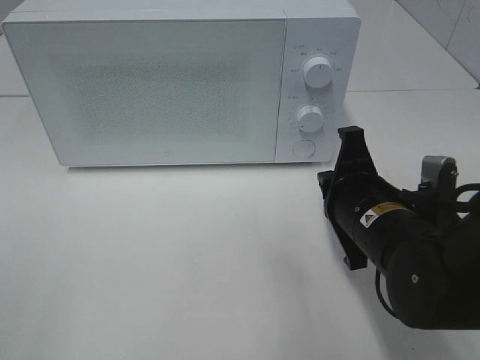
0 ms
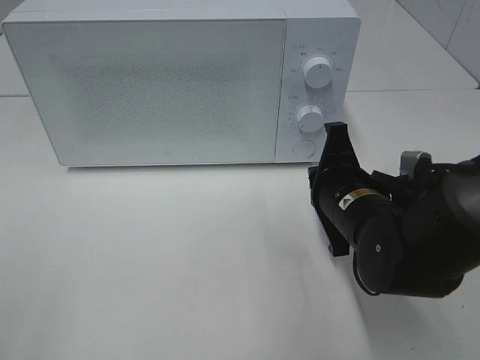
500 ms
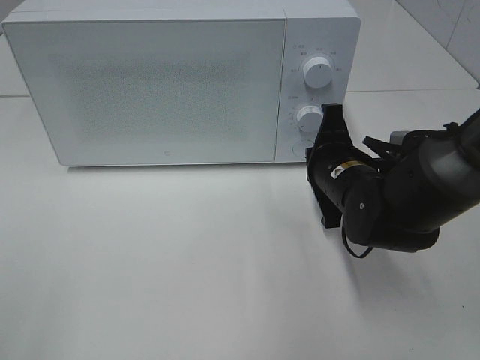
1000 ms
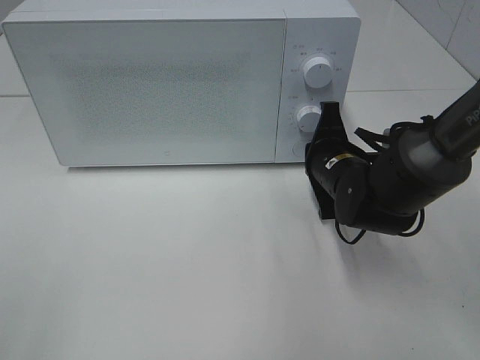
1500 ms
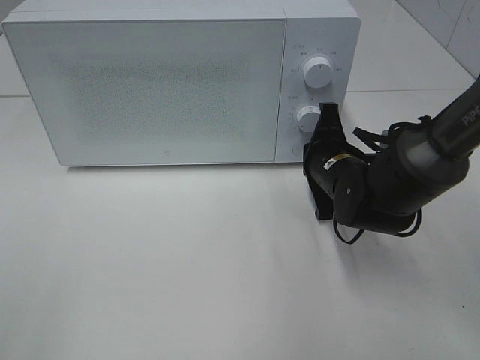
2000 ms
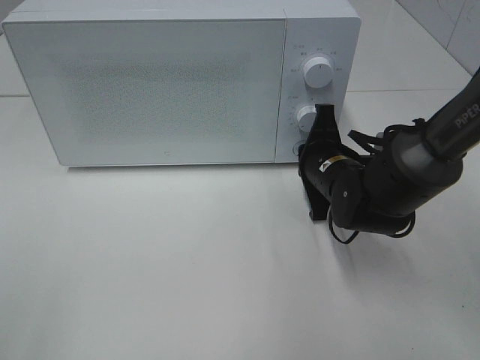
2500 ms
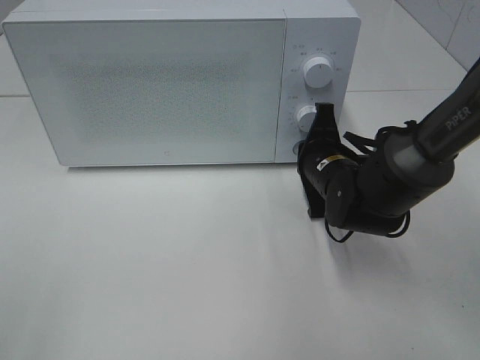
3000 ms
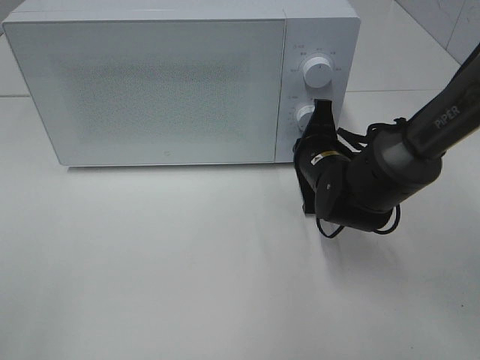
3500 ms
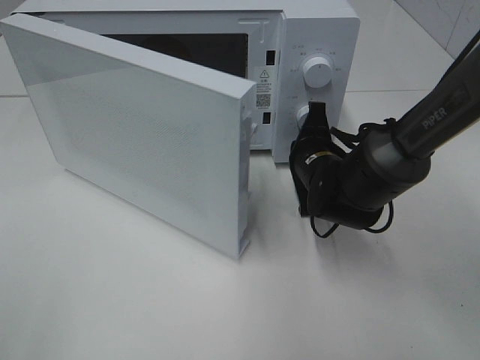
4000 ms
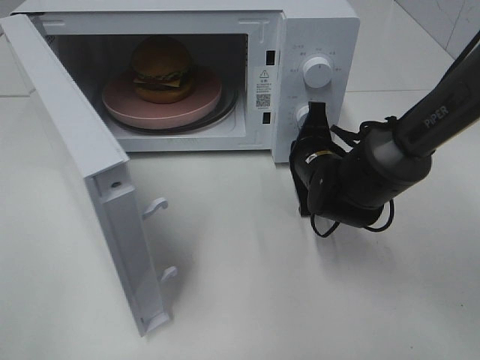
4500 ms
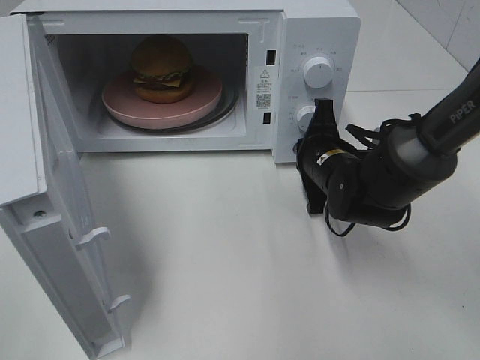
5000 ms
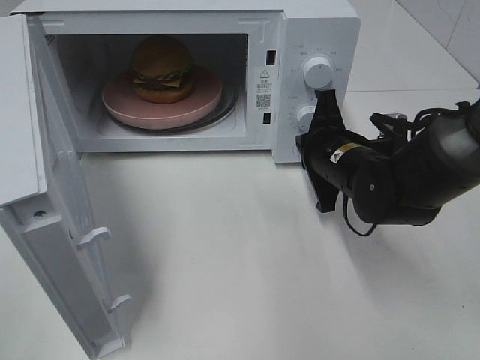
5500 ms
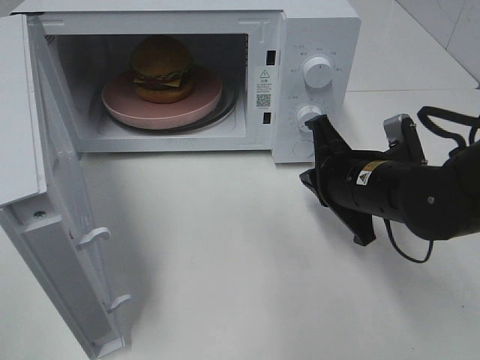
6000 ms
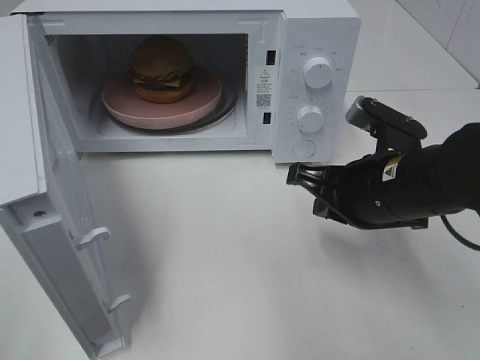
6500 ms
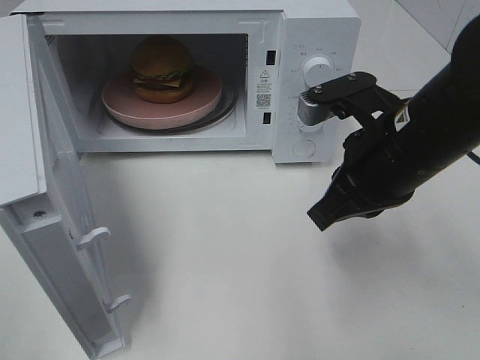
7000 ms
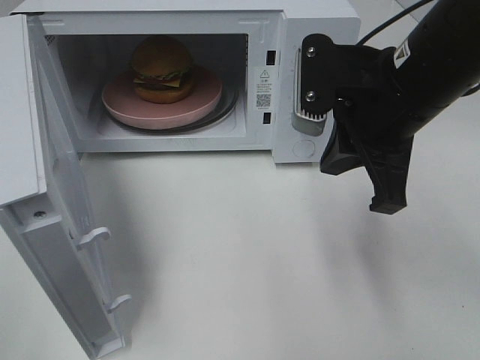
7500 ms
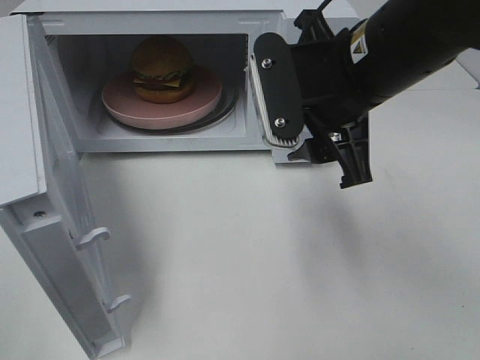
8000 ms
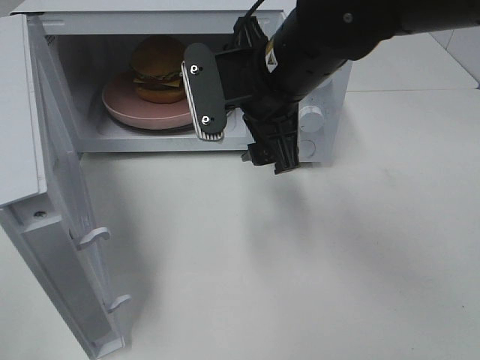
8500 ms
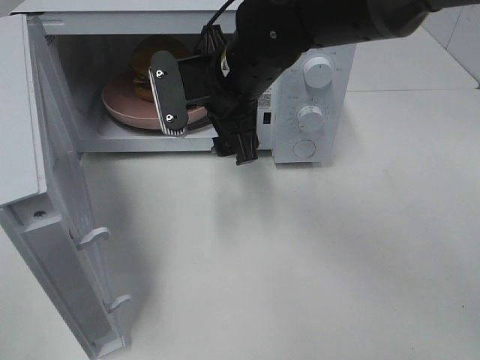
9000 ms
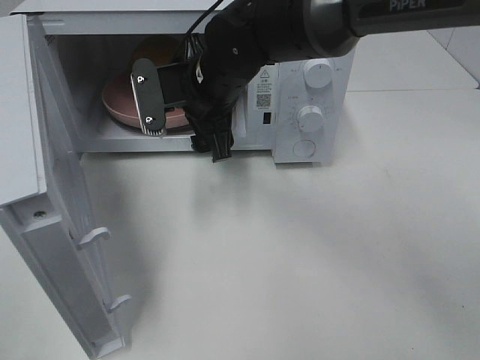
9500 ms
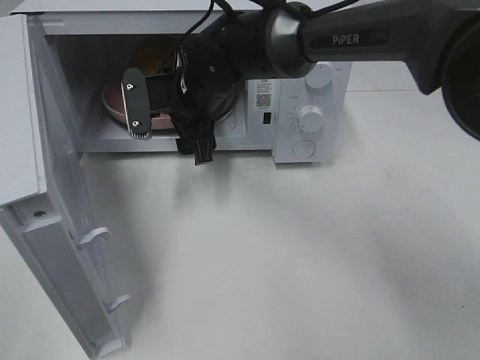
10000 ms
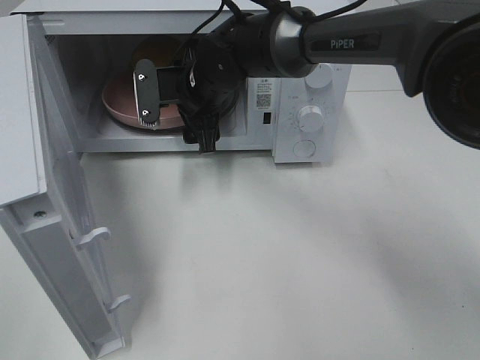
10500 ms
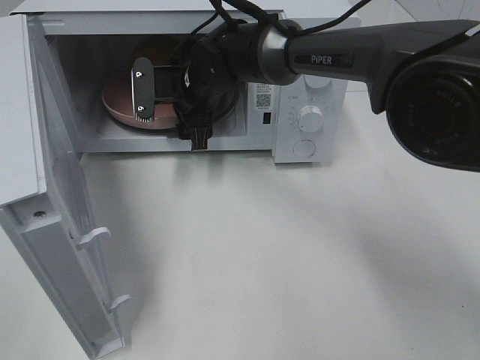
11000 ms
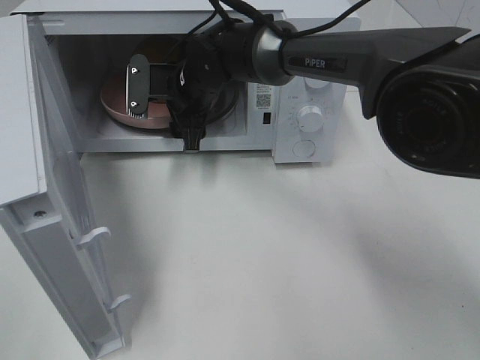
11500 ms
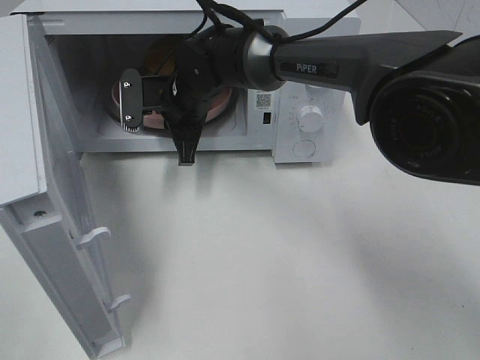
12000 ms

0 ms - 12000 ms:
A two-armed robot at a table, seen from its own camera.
Task of the whole recording: Heat the burger.
Step, 0 ms - 5000 ms: Right hand: press the switch.
Step, 5500 ms - 12000 ms: Right hand: grab the plate with the hamburger.
0 ms - 2000 ms: The right gripper moves forward, some 10 cm.
4000 ms - 6000 ms: The right gripper heads backward, covering about 10 cm.
6000 ms - 8000 ms: The right gripper heads upward, covering roughly 15 cm, and opens its fingers.
8000 ms - 10000 ms: The right gripper travels to the left, forward and downward by some 20 cm.
10000 ms - 12000 ms: The right gripper closes its fingers.

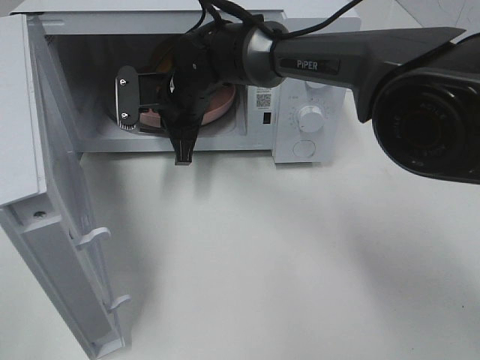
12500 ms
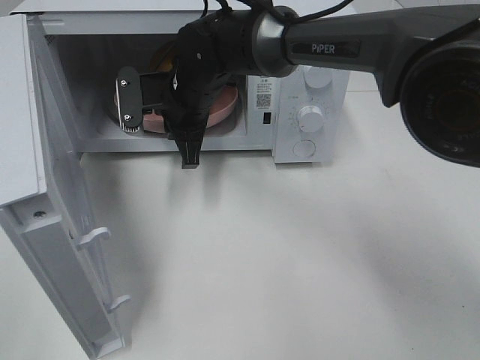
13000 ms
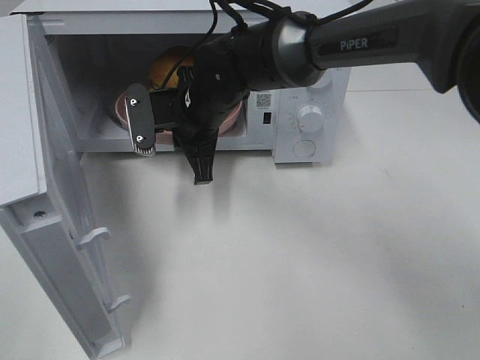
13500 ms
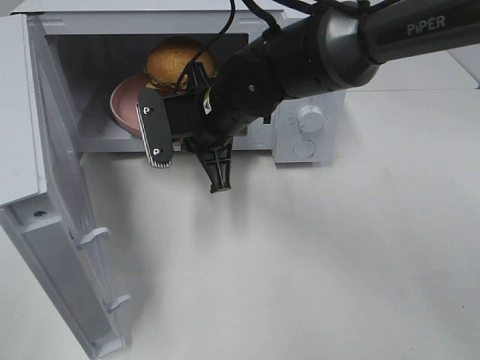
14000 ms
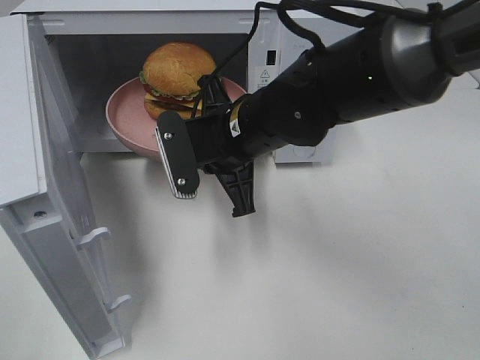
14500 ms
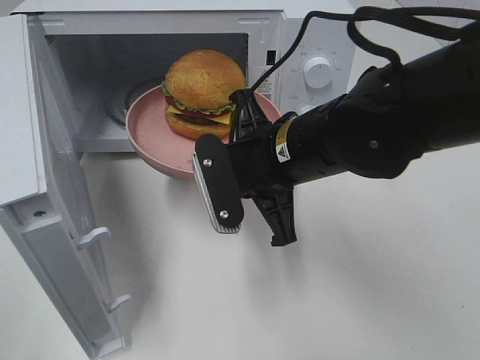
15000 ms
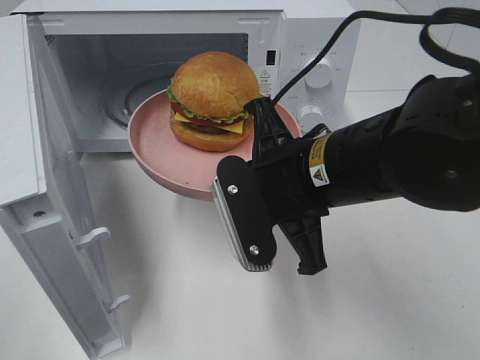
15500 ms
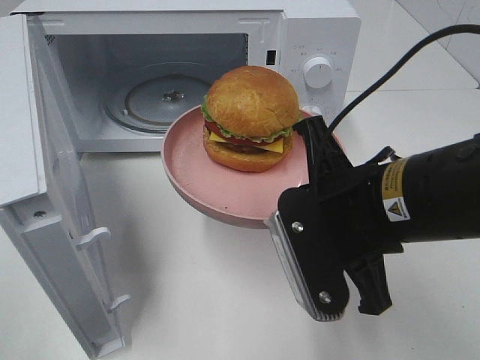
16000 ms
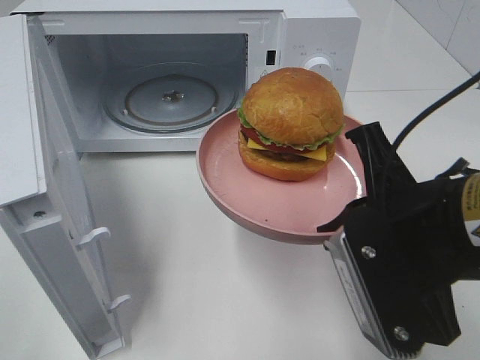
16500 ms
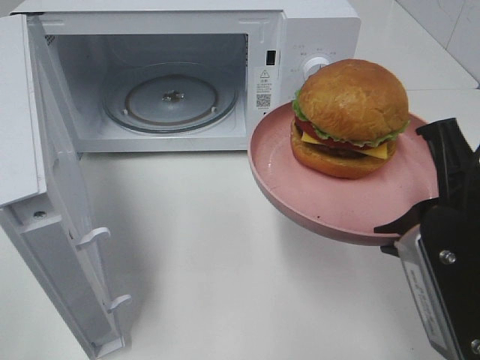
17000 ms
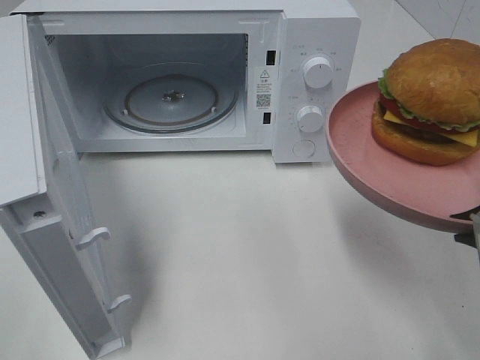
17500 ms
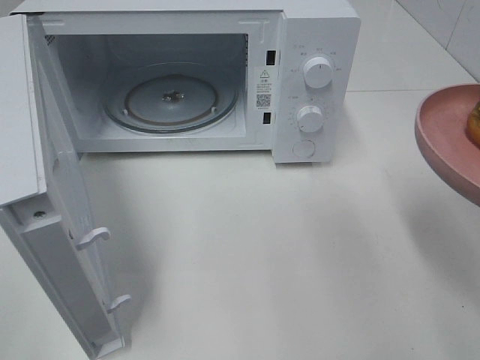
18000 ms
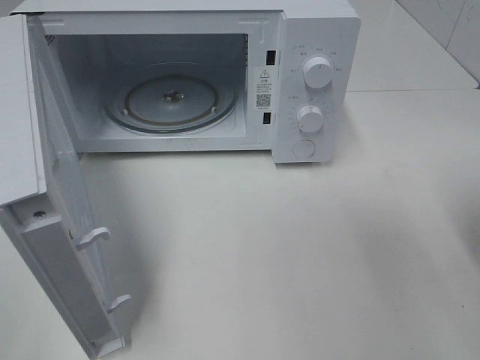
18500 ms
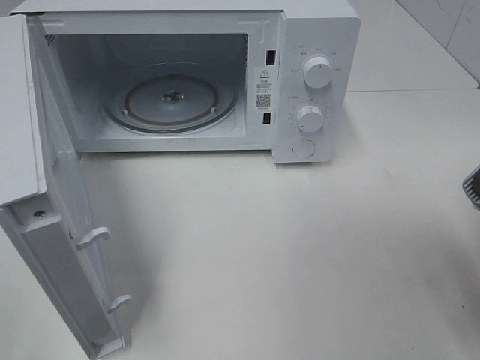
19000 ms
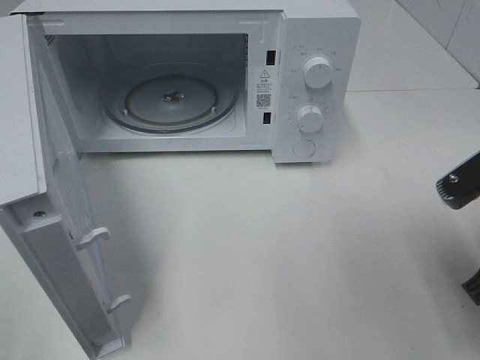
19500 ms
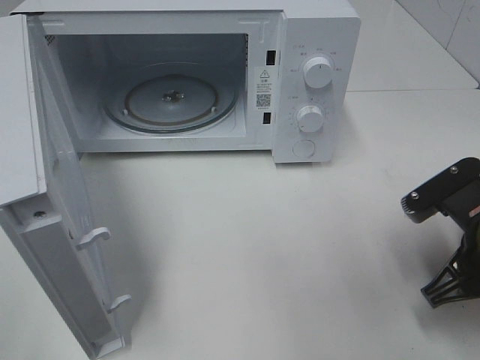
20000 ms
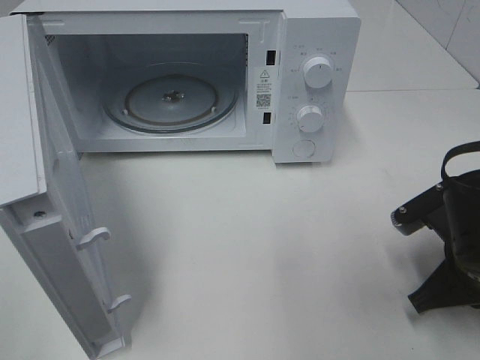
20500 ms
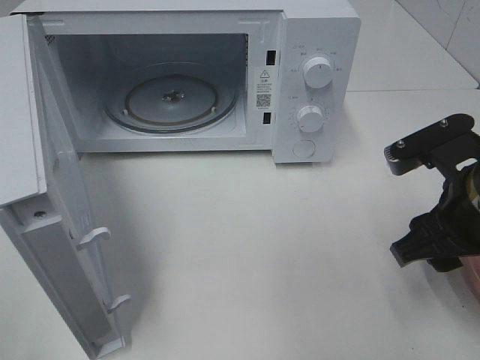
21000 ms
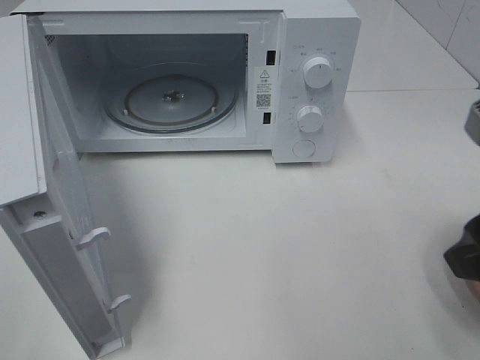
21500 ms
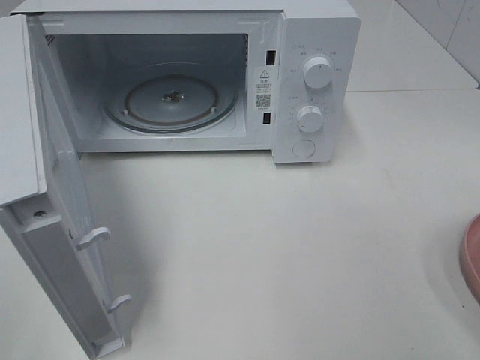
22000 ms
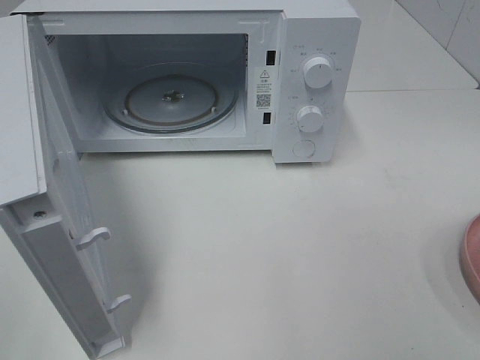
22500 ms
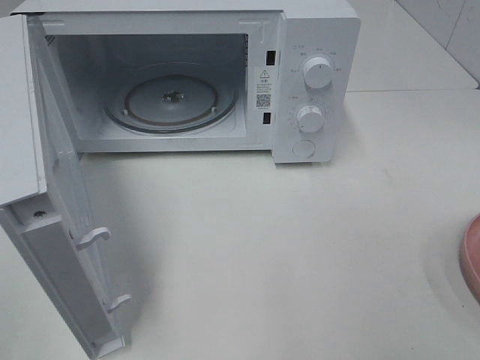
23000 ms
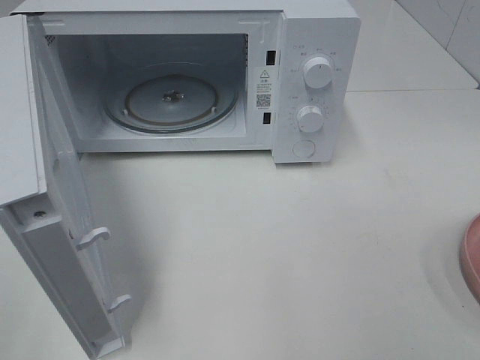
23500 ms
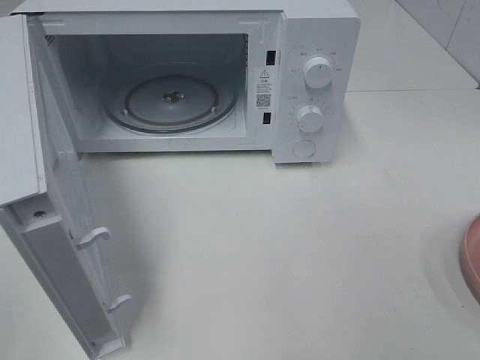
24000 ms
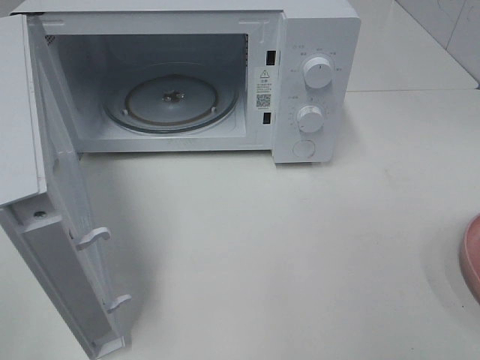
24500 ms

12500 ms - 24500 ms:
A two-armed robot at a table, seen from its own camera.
Task of the whole recording: Heat the burger.
Step, 12500 ms - 20500 ms: Right hand: place the plate on the table.
12500 ms - 14500 ms: The right gripper is displaced backward and to the right by about 15 cm.
14500 ms - 16500 ms: The right gripper heads backward and to the right, covering approximately 20 cm.
16500 ms - 18500 ms: The right gripper goes some 10 cm to the right.
18500 ms - 20500 ms: The right gripper heads downward and forward, covering approximately 15 cm.
20500 ms - 22500 ms: The right gripper moves upward and backward, some 25 cm, and opens its fingers.

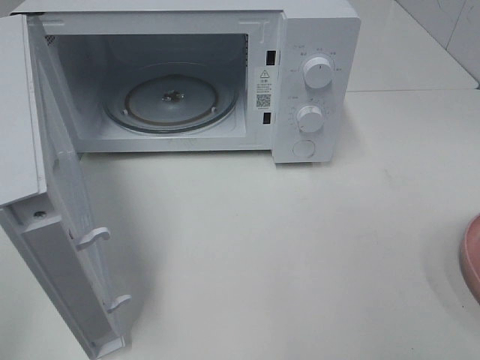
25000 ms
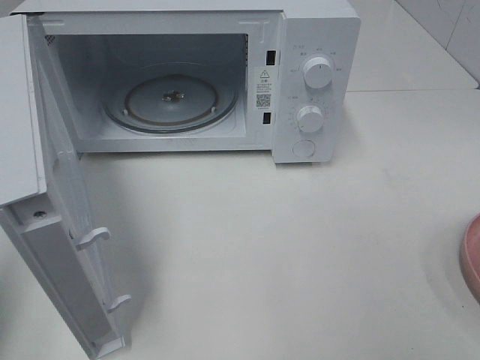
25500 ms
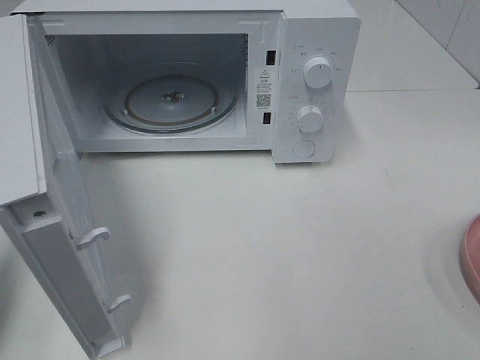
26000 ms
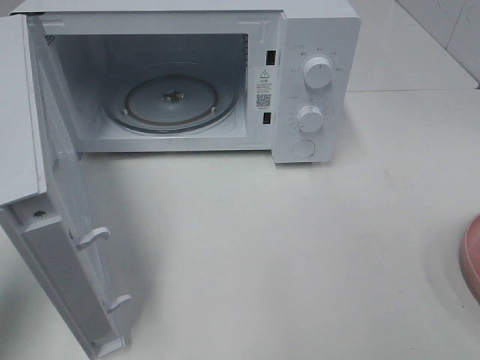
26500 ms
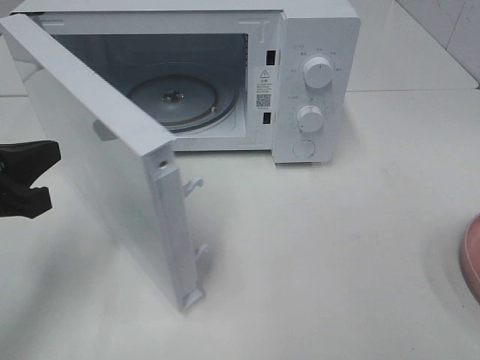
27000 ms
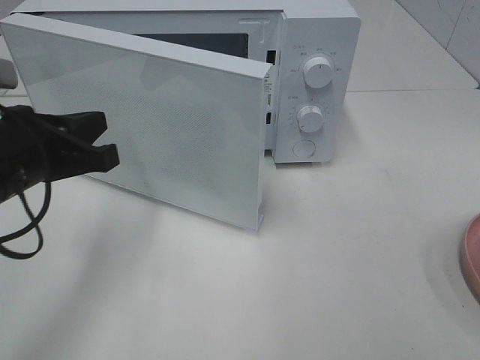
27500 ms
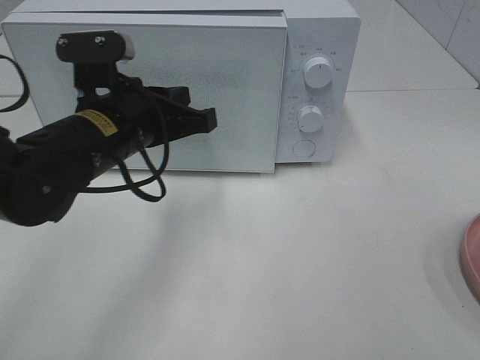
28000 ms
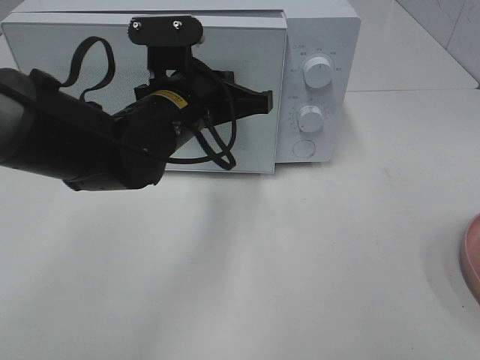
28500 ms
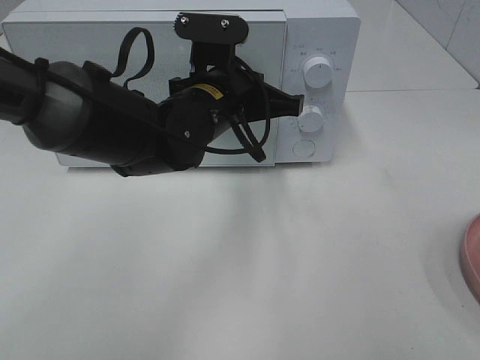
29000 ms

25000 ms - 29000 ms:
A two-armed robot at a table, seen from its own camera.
Task of the whole recording: Heat the burger.
25000 ms - 27000 ms: The left gripper travels forward and downward by roughly 20 cm, and closes its fingers.
27000 ms - 29000 ms: The left gripper is displaced to the right and forward by some 25 cm.
